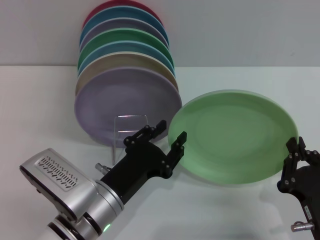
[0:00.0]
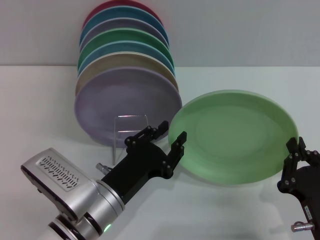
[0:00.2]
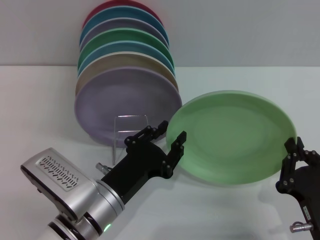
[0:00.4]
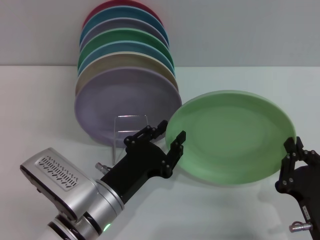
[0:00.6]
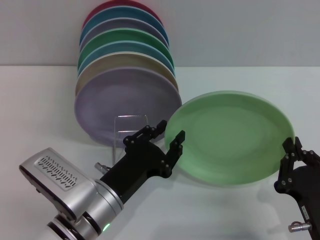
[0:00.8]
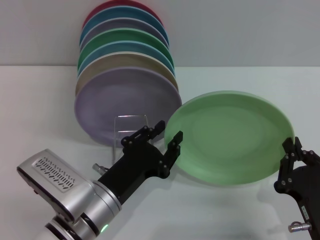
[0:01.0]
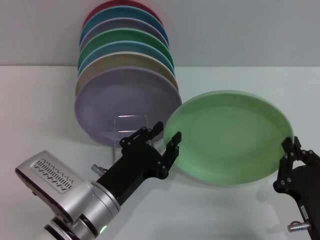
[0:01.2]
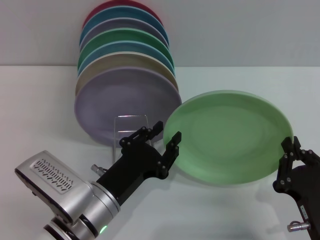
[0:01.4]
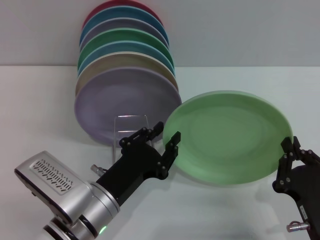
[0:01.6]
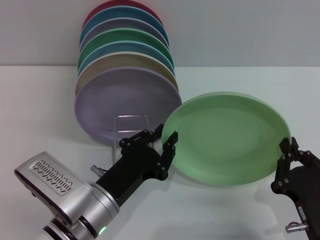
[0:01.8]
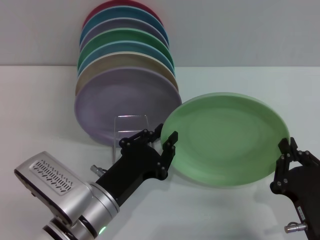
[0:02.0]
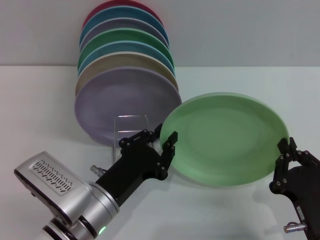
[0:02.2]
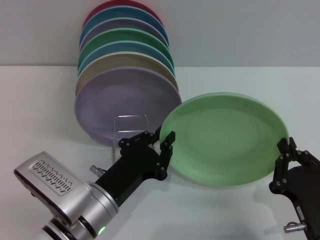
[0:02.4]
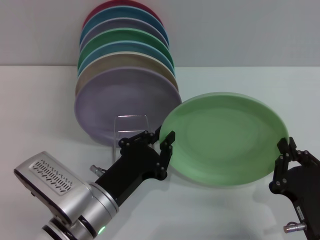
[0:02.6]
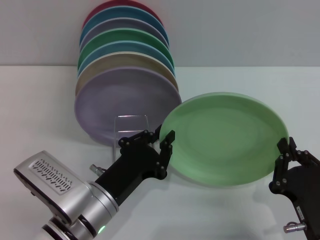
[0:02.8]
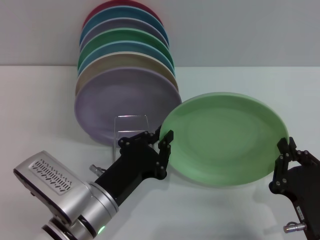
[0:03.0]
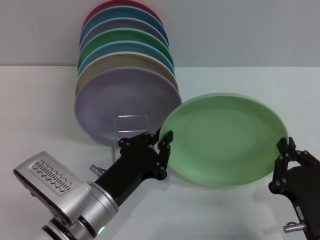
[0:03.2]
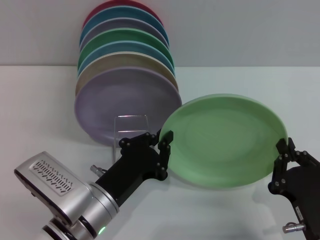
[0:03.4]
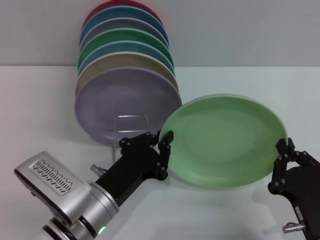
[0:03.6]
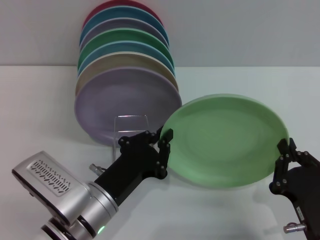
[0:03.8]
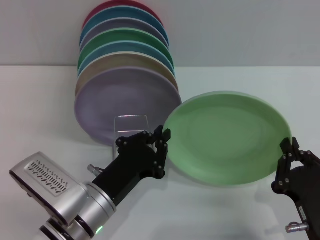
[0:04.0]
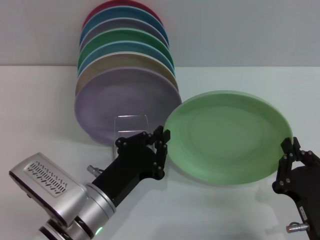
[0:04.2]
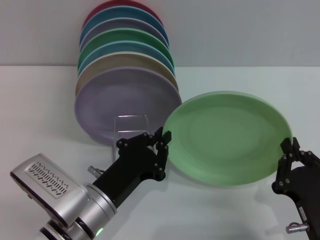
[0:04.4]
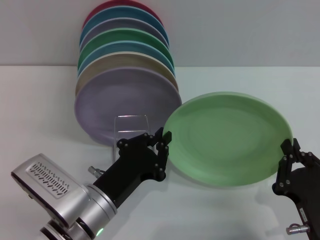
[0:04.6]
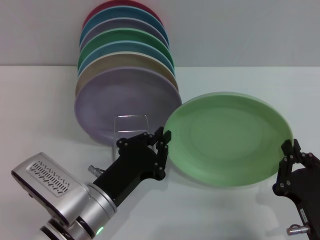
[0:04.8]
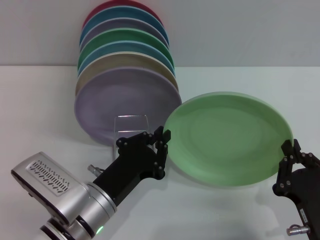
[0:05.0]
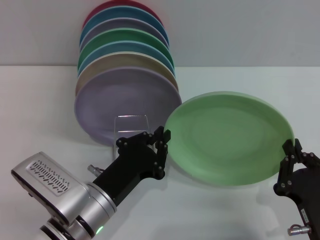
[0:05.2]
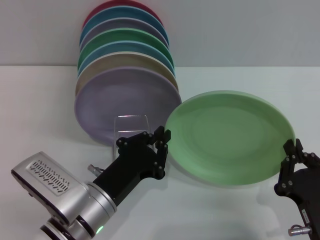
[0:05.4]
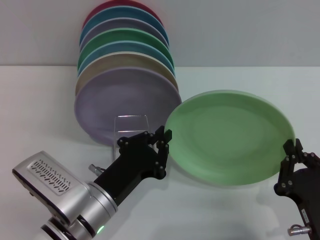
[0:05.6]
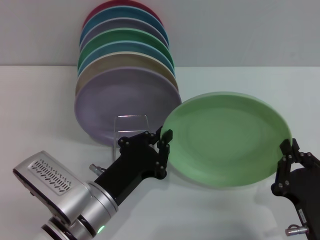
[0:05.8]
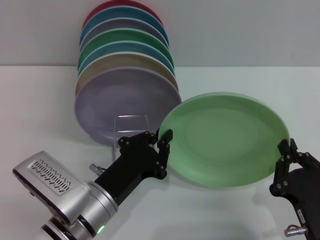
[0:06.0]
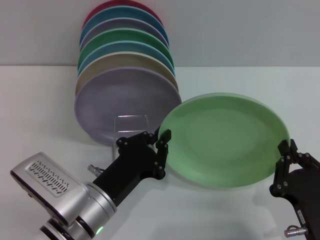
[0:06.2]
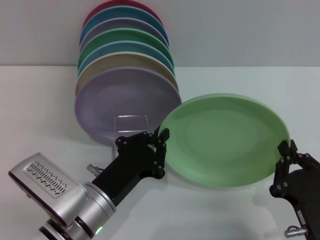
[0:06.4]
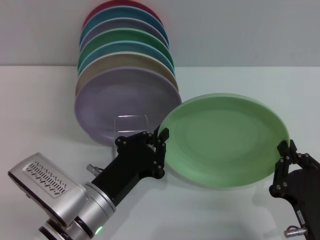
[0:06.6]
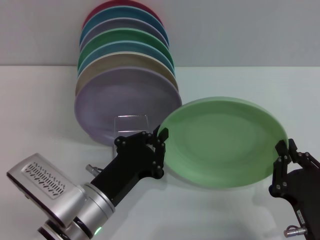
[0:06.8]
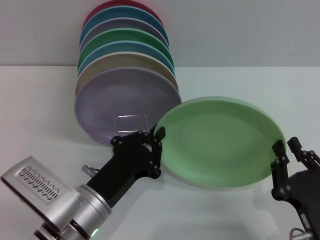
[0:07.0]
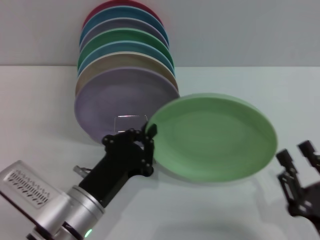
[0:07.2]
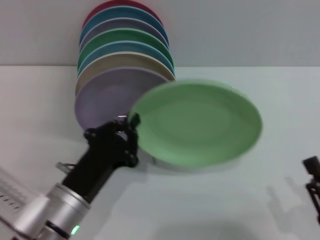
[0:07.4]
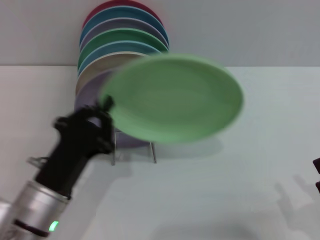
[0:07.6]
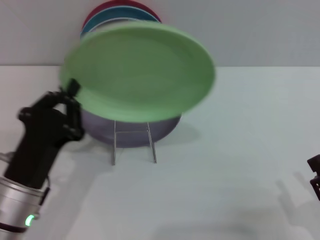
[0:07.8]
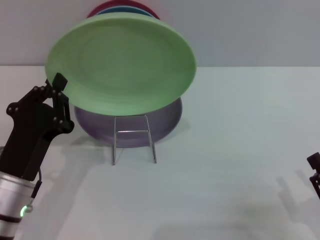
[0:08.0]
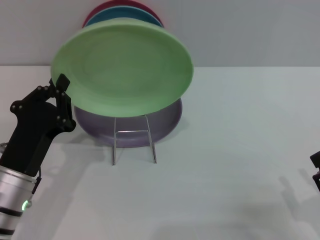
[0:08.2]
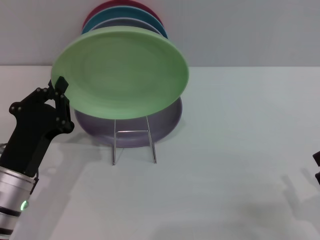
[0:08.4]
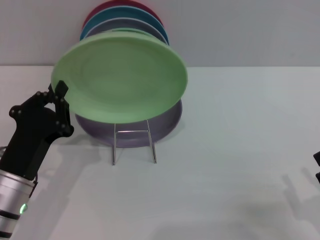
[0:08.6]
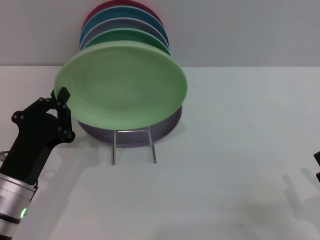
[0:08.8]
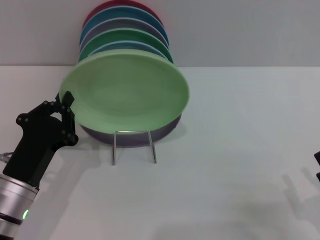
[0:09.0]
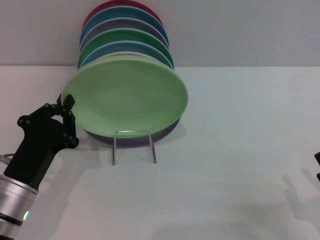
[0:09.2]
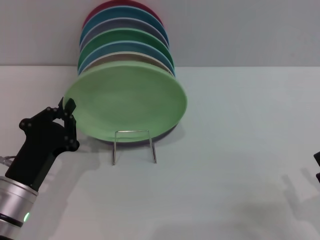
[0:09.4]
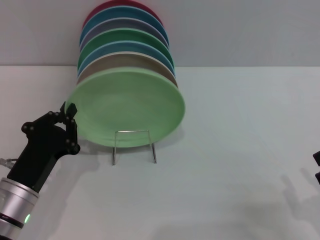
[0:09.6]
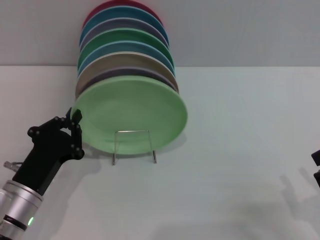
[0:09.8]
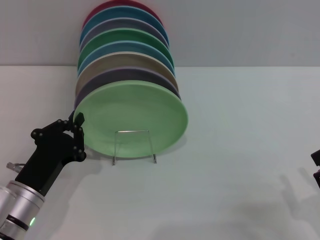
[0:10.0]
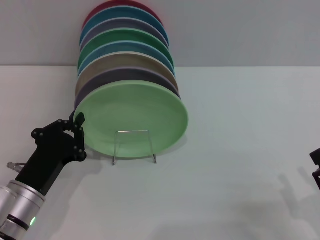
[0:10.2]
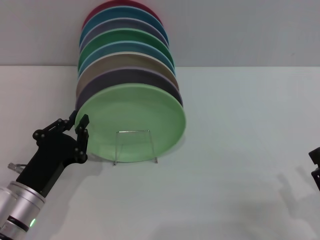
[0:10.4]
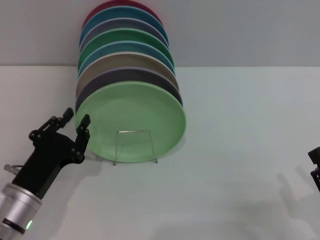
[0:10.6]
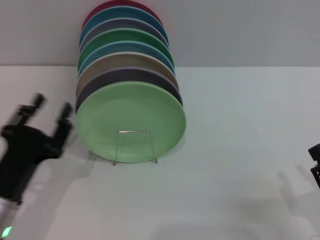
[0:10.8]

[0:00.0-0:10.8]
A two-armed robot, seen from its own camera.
Task of the whole recording: Grip the plate with one hand, pass it to the other, then set it on the shelf.
Step, 0:00.0 to 0:07.4: Pass the plate from the right gripper to the left gripper.
Step, 0:07.8 to 0:10.8: Place the plate on the shelf with the left gripper.
0:00.0 to 0:06.2: Neither gripper changes place.
0:06.2 to 0:07.8: The right gripper goes roughly 10 cm to the right, and opens. The left gripper moves to the left, about 5 cm.
0:07.8 to 0:09.2: There are only small adjustments of the grippers.
0:09.2 to 0:10.8: The grippers stay close to where they were, moving slightly.

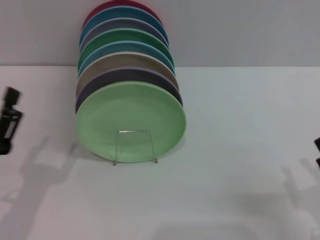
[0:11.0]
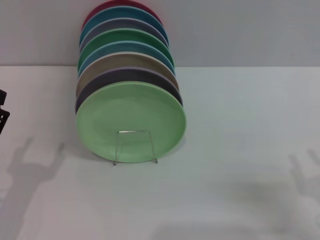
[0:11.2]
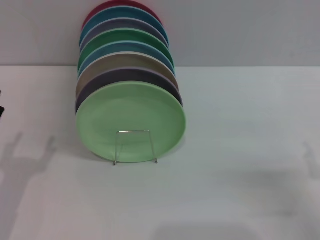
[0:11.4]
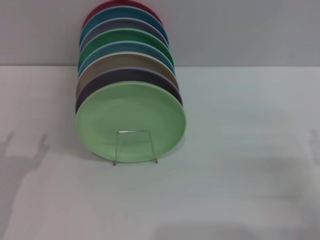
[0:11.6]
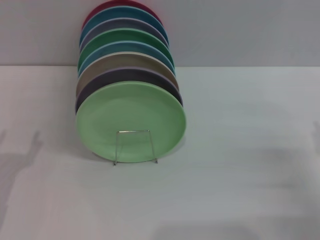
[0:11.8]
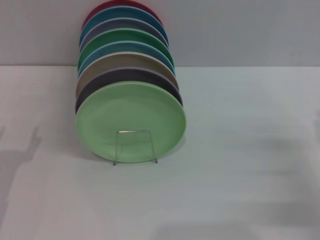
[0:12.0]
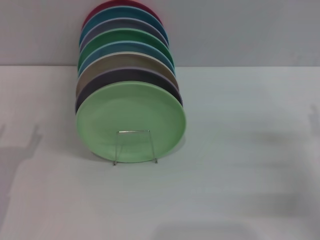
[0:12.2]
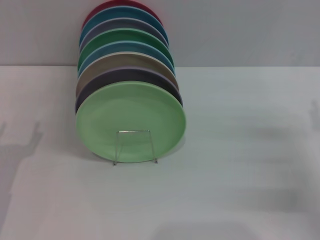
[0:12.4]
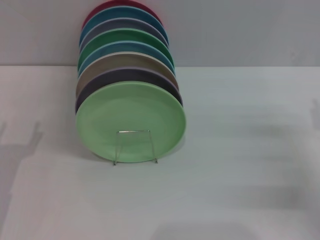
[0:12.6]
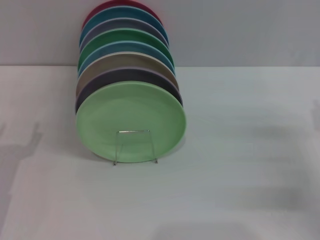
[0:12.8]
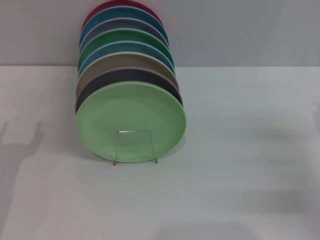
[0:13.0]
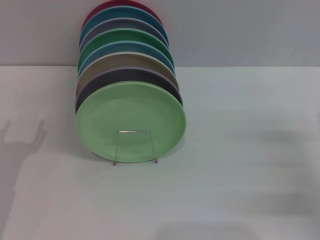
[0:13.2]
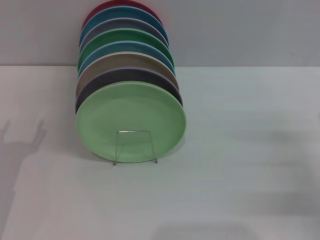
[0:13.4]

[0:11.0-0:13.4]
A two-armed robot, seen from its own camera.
Task of the whole recording: Grip the plate with one hand, pass it to the other, then set it on the shelf.
0:11.0 to 0:12.2: The right gripper goes roughly 10 cm forward. The left gripper ends up some 5 cm from where it was, and opens up.

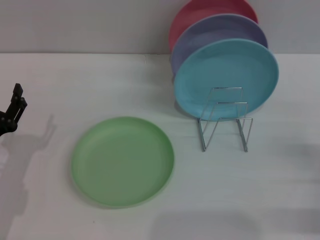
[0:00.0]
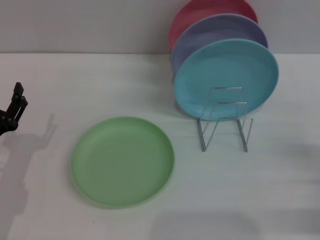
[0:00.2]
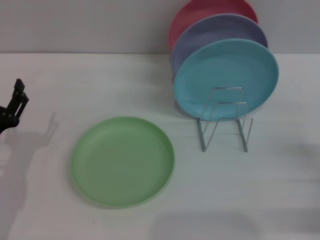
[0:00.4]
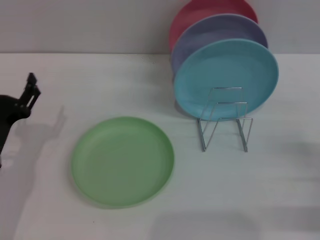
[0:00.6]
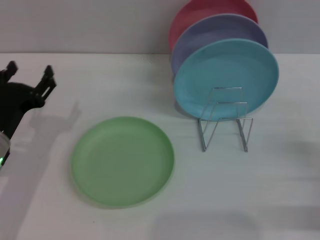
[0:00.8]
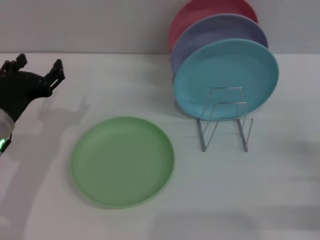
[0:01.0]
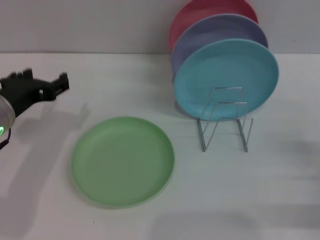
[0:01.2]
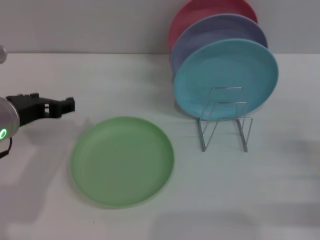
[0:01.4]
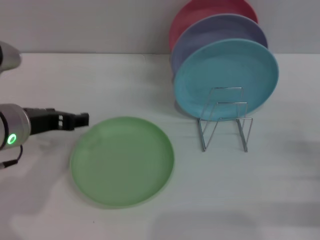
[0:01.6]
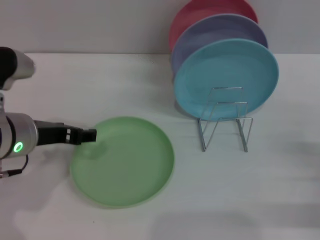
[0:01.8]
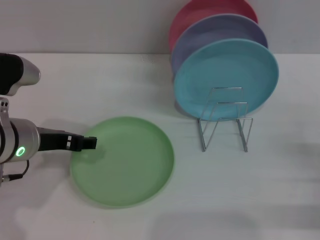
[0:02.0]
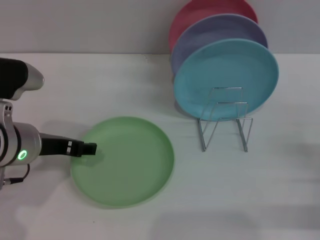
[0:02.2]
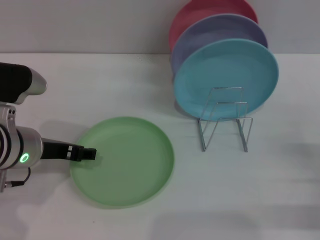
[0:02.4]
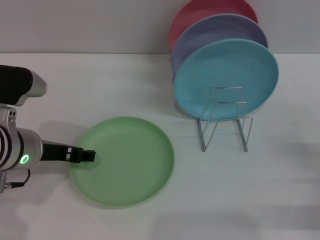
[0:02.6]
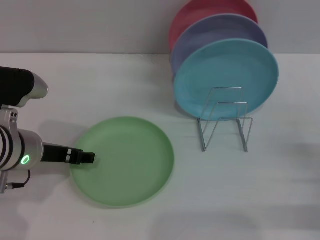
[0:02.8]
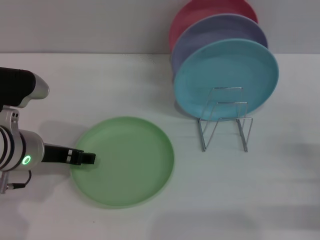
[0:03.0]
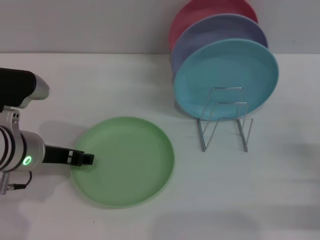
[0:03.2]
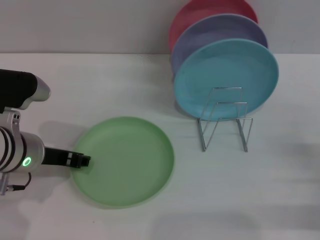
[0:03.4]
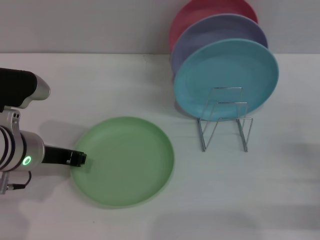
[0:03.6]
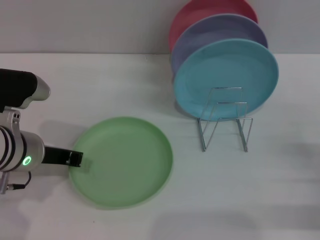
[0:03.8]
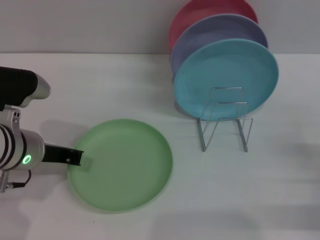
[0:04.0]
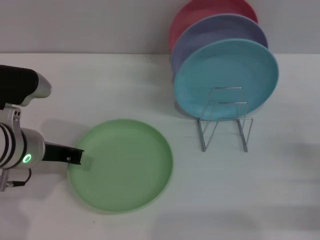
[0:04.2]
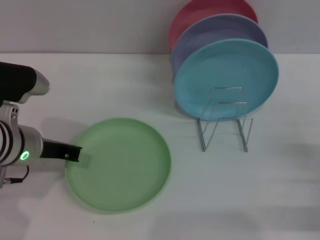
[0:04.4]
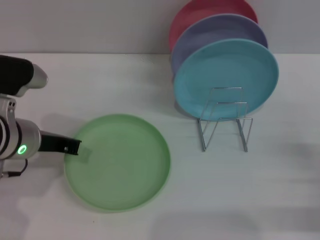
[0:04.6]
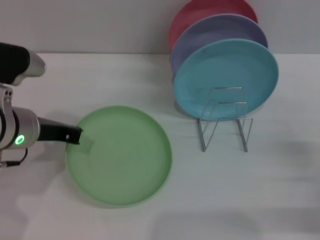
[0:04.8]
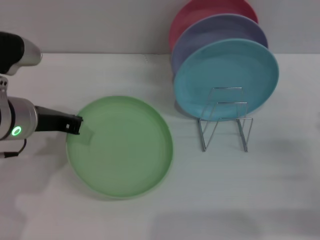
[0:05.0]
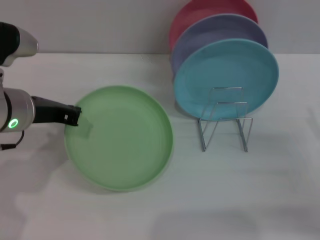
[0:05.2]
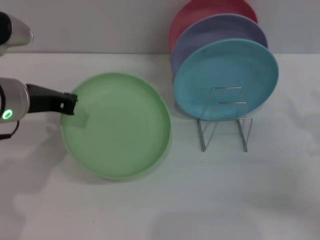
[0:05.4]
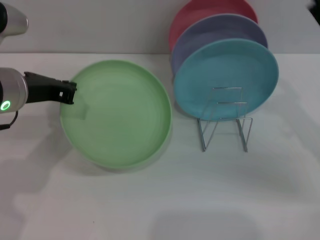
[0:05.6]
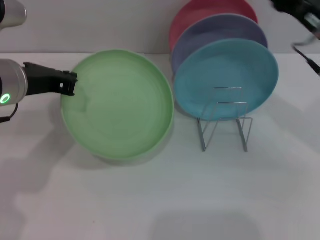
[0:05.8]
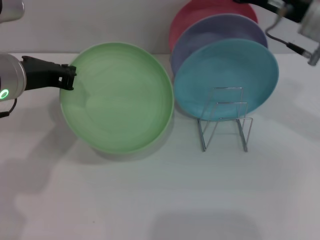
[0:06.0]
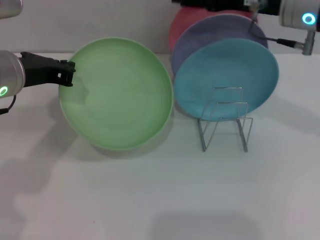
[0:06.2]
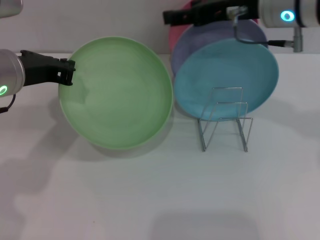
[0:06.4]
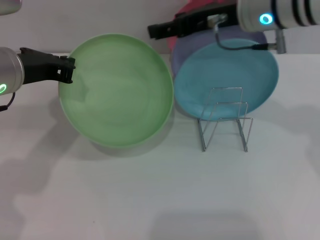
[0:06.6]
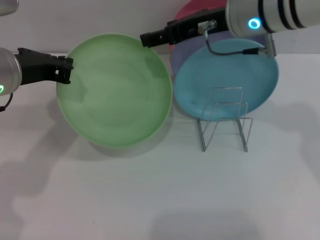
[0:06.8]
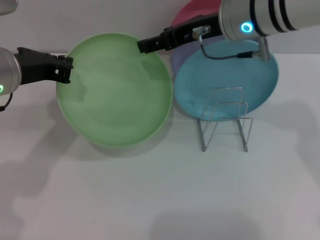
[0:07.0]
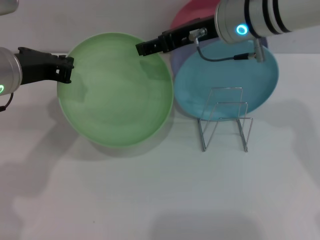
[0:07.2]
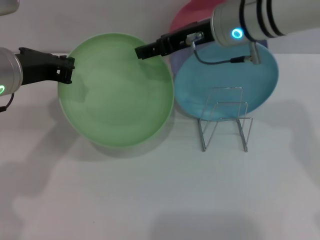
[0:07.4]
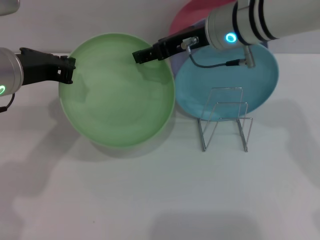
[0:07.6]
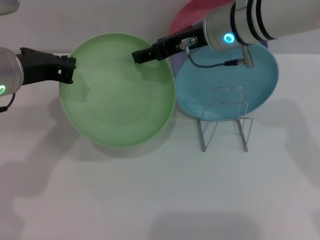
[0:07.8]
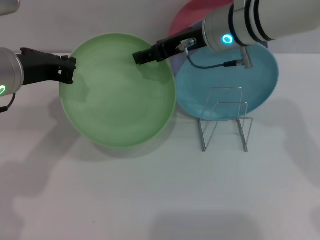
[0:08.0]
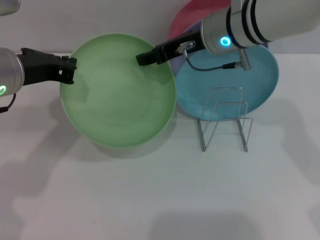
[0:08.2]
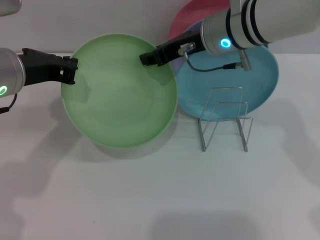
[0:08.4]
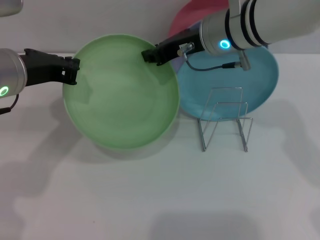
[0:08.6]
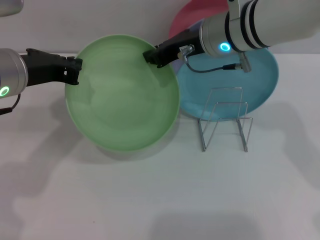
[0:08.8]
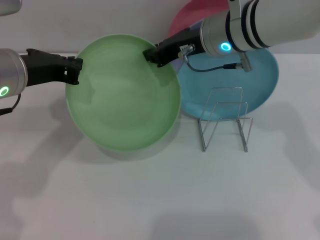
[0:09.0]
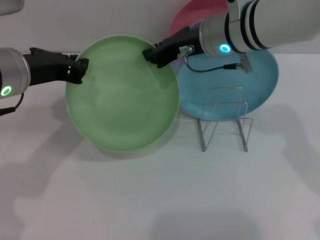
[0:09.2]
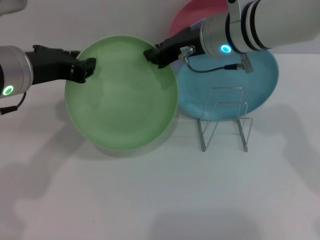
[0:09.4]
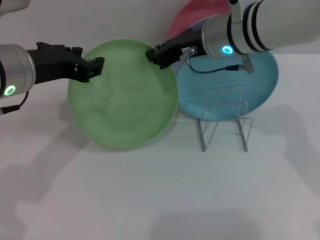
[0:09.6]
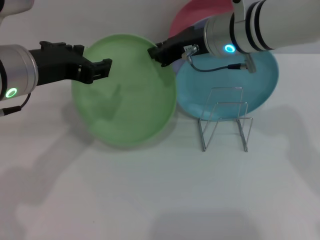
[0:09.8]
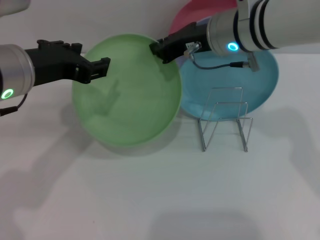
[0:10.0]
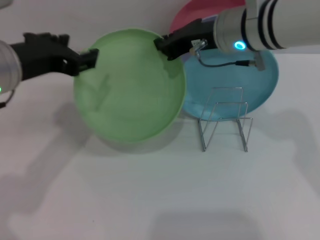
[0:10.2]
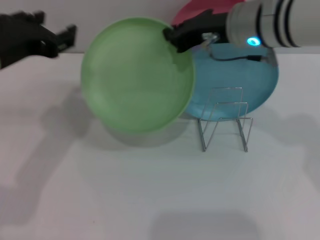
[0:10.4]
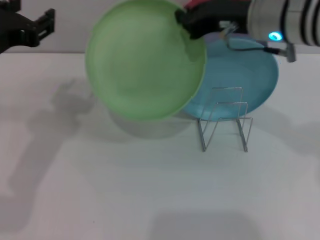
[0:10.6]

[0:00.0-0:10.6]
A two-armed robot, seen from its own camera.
Task of the whole recording: Grip the plate with one hand, pass it to the other, then set it on the shelf.
Step, 0:00.0 to 0:05.6: Pick up the plate with the left gripper.
0:00.0 to 0:01.6: The left gripper travels upward, to the right and forward by roughly 15 cm.
0:01.6 to 0:03.0: There are only small adjustments of the grippers.
0:03.0 to 0:04.6: The left gripper closes.
0:04.6 to 0:06.0: The left gripper goes some 10 cm upward, while the right gripper is displaced upward, forward and to the left by some 30 cm.
0:06.0 to 0:07.6: The right gripper is displaced to the left by some 10 cm.
0:07.6 to 0:09.0: The right gripper closes its fingers.
0:09.0 to 0:10.6: The left gripper opens up; the right gripper is displaced to the right by approximately 5 cm.
